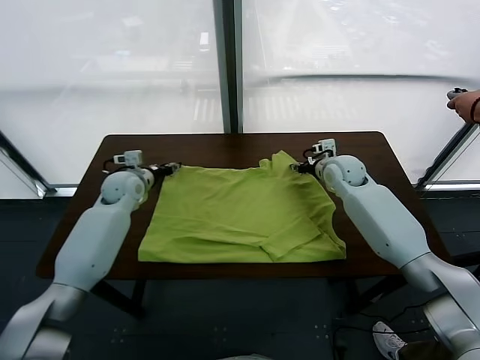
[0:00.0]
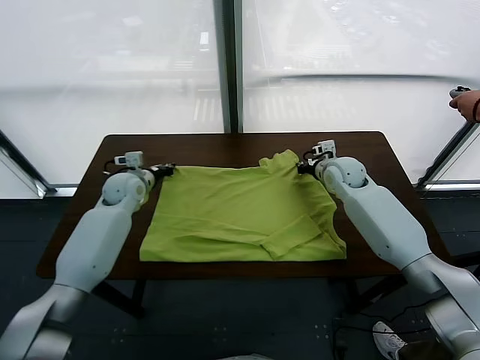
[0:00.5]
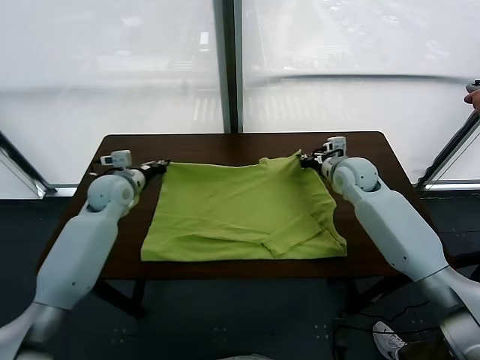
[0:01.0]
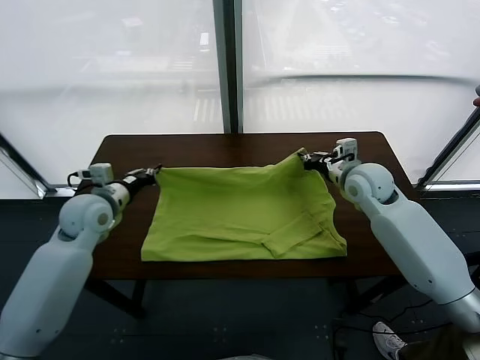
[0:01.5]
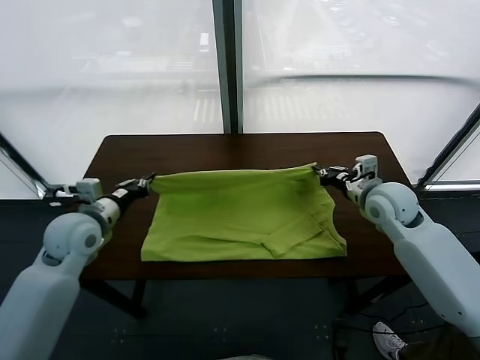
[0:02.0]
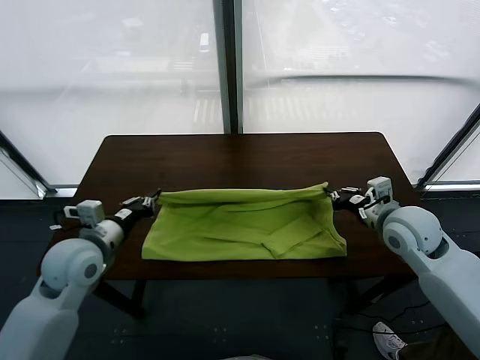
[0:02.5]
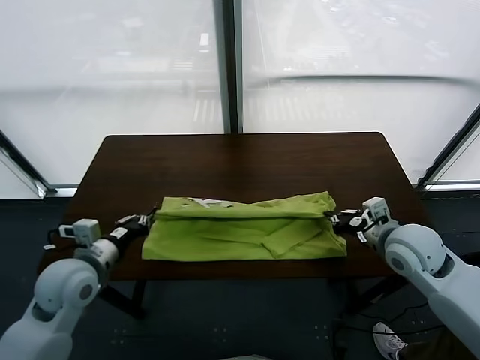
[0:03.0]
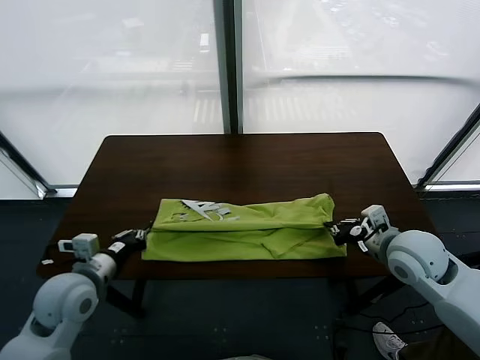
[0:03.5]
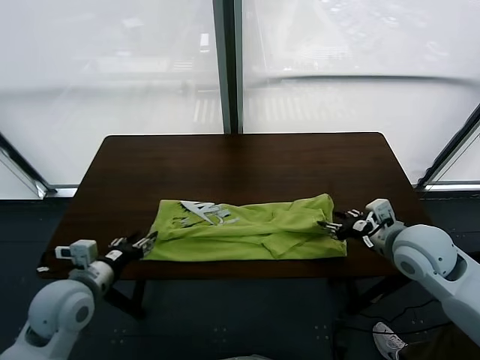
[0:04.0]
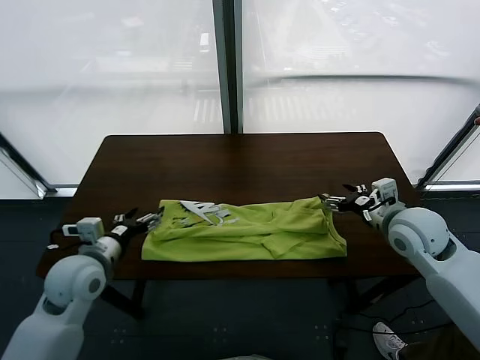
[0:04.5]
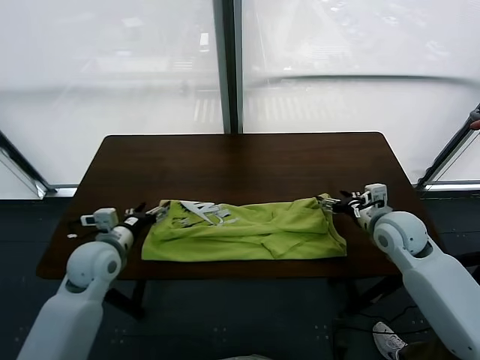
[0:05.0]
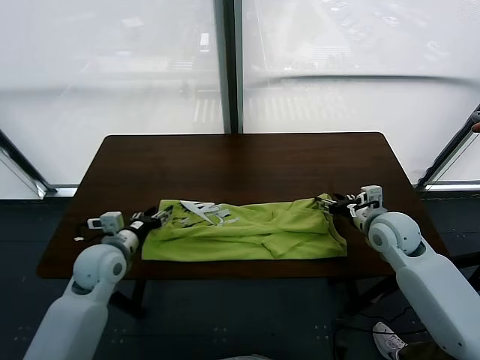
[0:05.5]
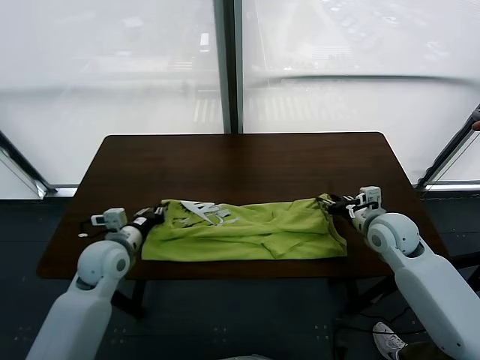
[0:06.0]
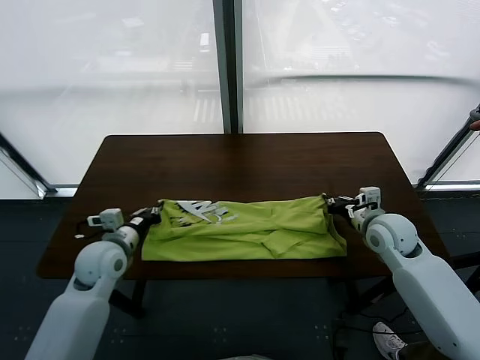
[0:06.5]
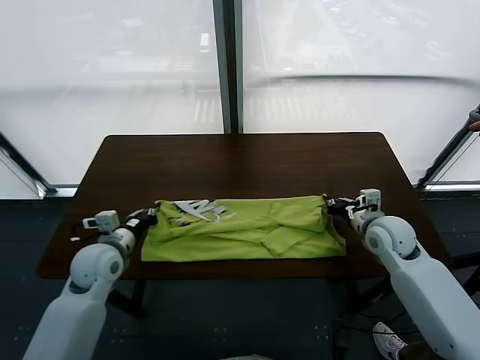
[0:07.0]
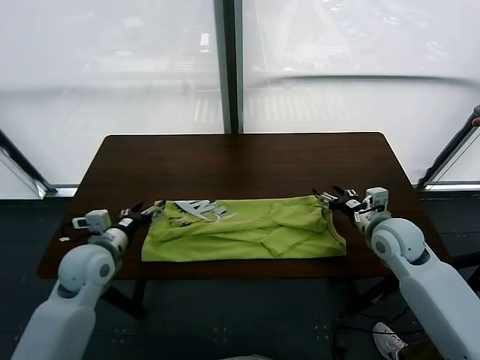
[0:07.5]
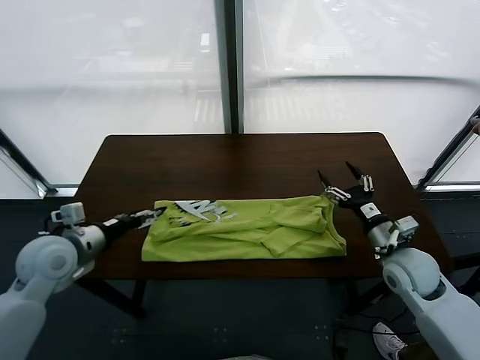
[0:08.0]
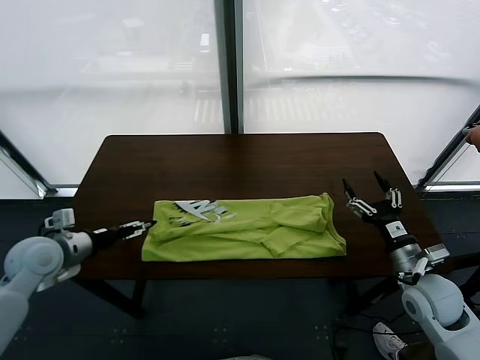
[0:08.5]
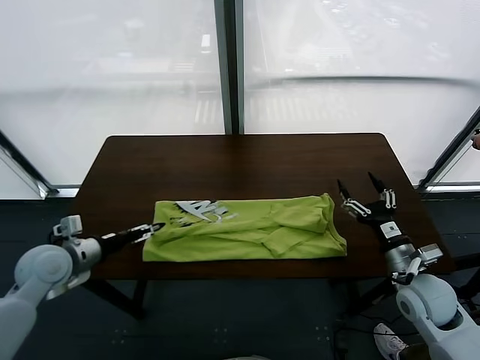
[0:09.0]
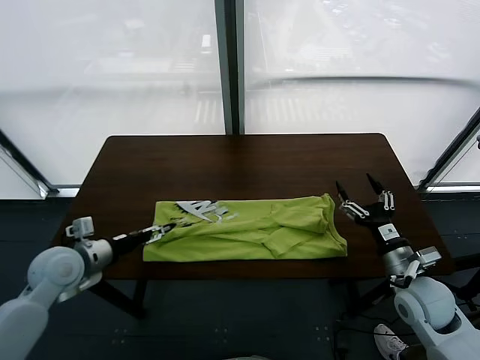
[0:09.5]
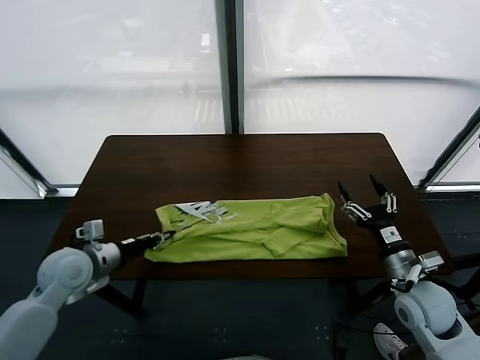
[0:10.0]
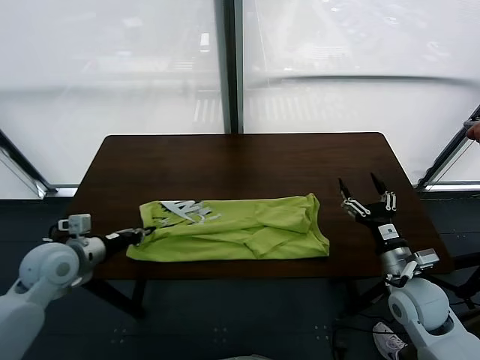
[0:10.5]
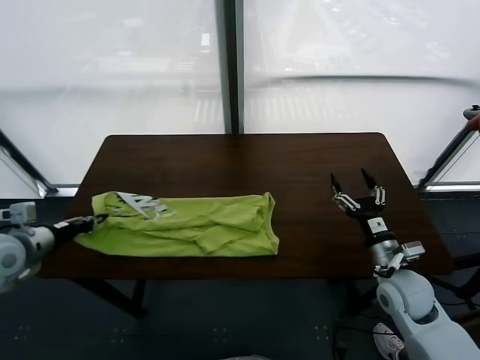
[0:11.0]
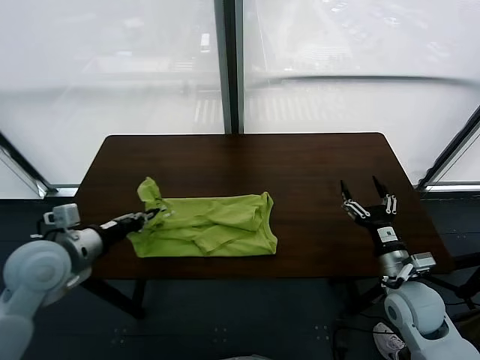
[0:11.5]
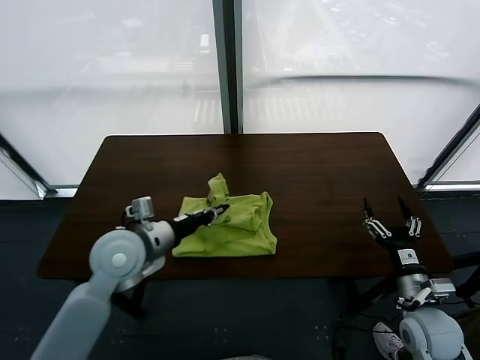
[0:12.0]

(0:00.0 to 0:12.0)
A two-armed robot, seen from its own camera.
Task of the whole recording: fold and organize the clothes.
Step, 0:01.0 - 0:04.0: use both grippers to drag the upper edge of the fabric backward and fold it over the lower edge.
Step, 0:04.5 - 0:10.0: use the left gripper to clamp the left edge of the fabric.
0:00.0 - 0:02.0: The two grippers go roughly 15 cm backward and upward. The left gripper closes. Meanwhile the right gripper closes up.
0:02.0 - 0:04.0: The two grippers go approximately 15 cm backward.
0:04.0 - 0:06.0: The left gripper moves forward, some 10 cm, and opens. The right gripper heads forward and downward, covering some 10 cm, and opens.
0:06.0 - 0:08.0: The right gripper shifts about 5 cm backward, and closes, then reopens. Meanwhile the left gripper ends up some 5 cm from where it was, and closes and opens again.
0:08.0 - 0:10.0: The right gripper is displaced backward by approximately 10 cm.
0:10.0 - 0:12.0: The left gripper heads to the right and upward, covering approximately 10 cm, and closes.

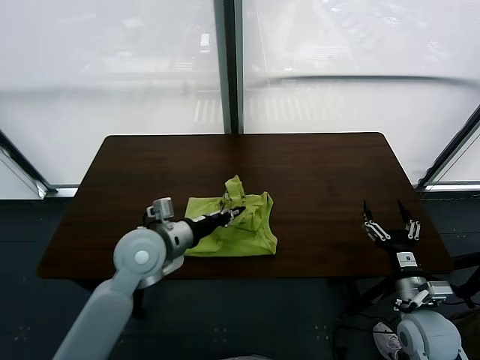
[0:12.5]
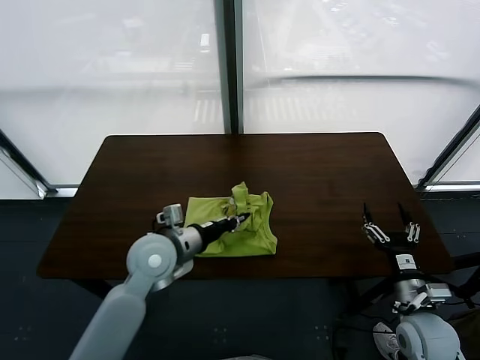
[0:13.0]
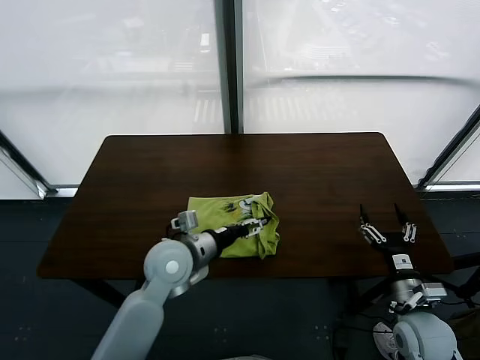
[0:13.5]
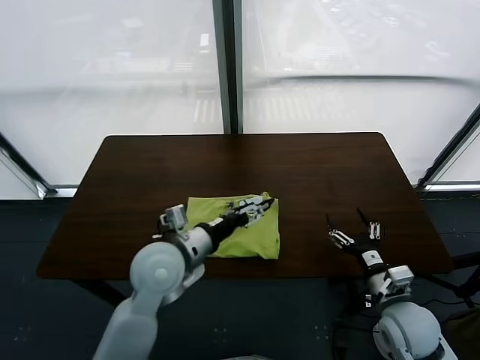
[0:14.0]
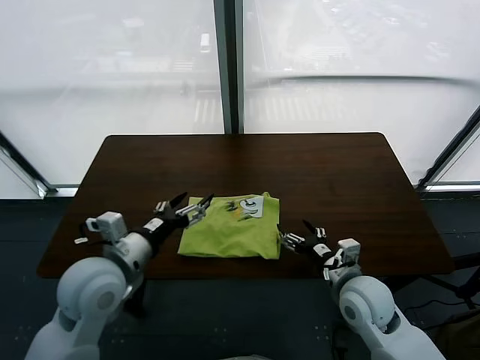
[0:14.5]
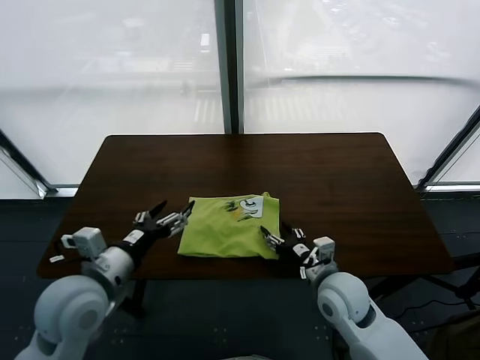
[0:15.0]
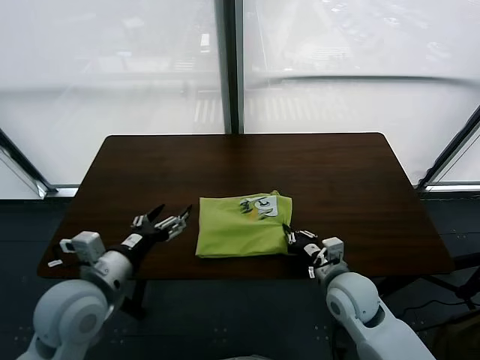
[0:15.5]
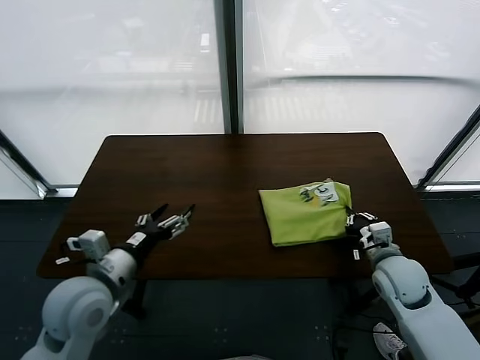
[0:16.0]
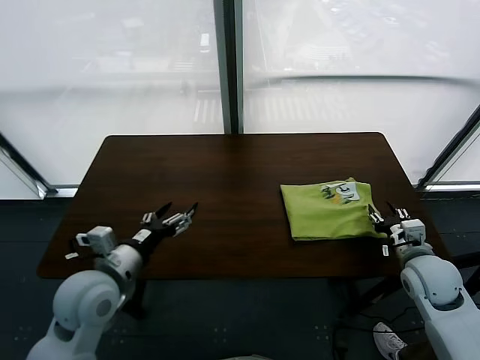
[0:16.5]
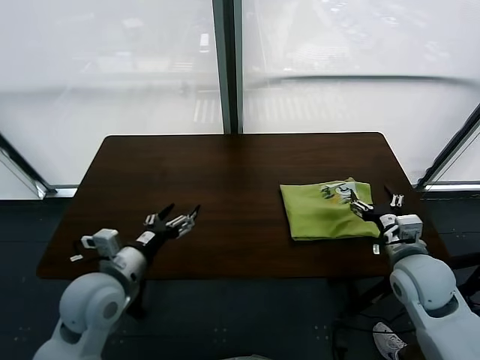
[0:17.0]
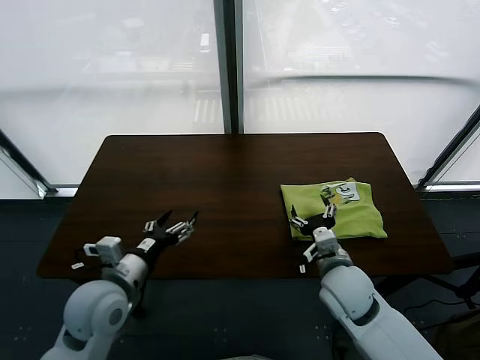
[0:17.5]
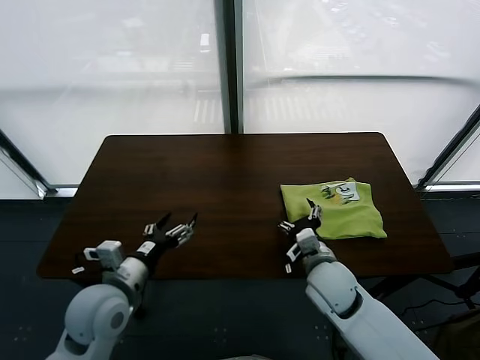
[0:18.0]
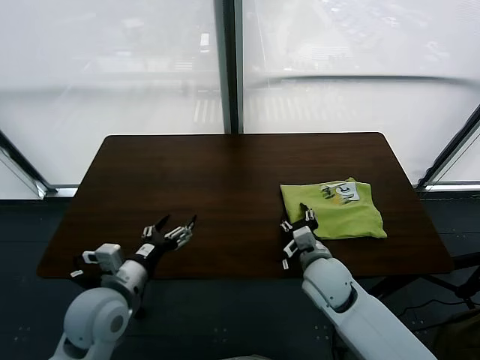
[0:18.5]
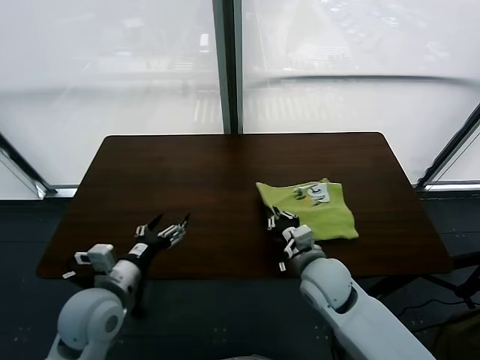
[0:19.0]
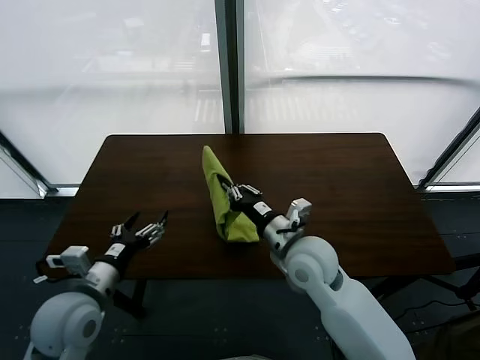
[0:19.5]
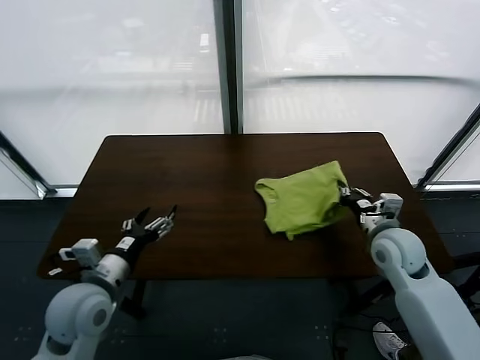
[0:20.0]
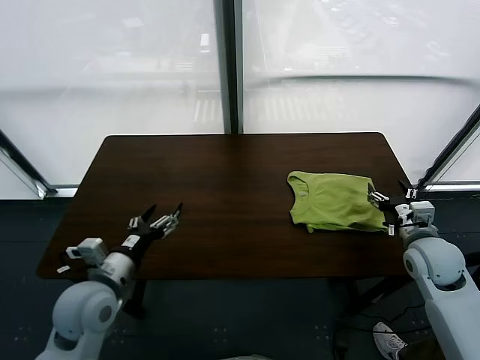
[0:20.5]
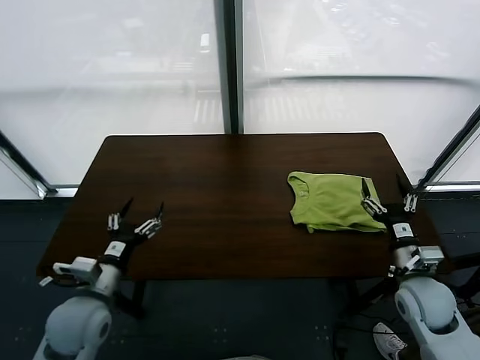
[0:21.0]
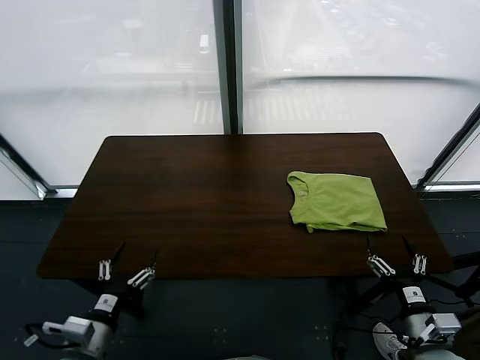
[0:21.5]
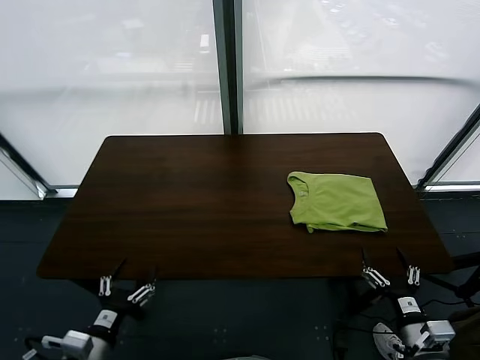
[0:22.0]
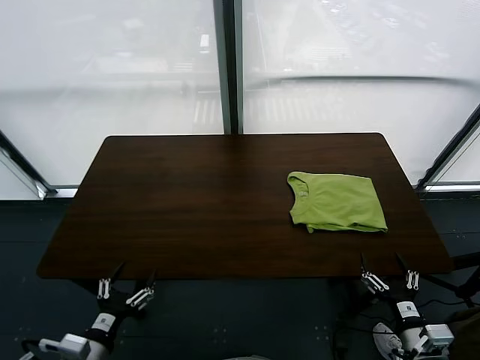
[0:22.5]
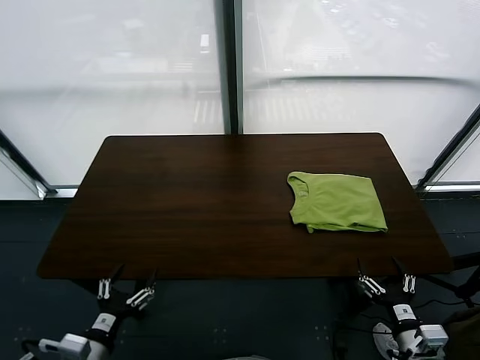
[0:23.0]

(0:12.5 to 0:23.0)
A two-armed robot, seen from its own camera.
Task of the whole recording: fold and organize the clothes.
Step, 0:14.0 - 0:16.5: Drag the clothes to the center of the table.
Step, 0:17.0 - 0:20.0: Flip the folded clothes over with right gripper.
0:12.5 - 0:14.5: The left gripper shifts some 5 cm backward, moves roughly 10 cm to the right and comes back, and opens up, while the right gripper shifts about 10 cm to the left.
0:14.5 - 0:16.5: The right gripper heads to the right, covering about 10 cm, and closes up. The left gripper shifts by some 5 cm.
0:16.5 - 0:19.0: The right gripper goes roughly 20 cm to the left, and opens, then closes once more.
0:19.0 - 0:21.0: The right gripper is displaced to the right by some 20 cm, and opens up.
0:21.0 - 0:23.0: Both grippers travel together backward, some 15 cm.
